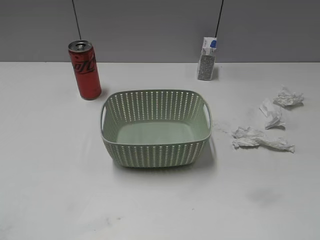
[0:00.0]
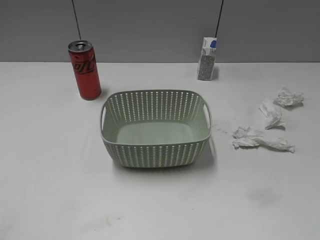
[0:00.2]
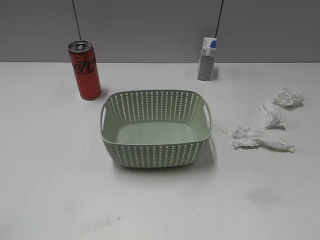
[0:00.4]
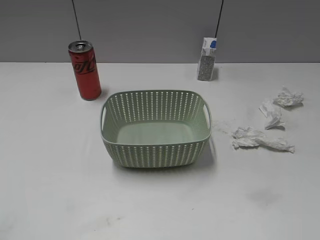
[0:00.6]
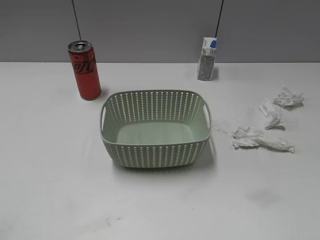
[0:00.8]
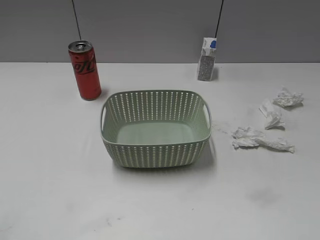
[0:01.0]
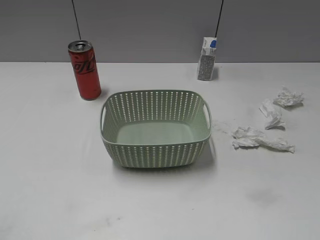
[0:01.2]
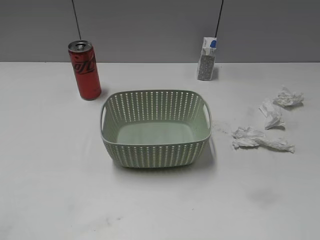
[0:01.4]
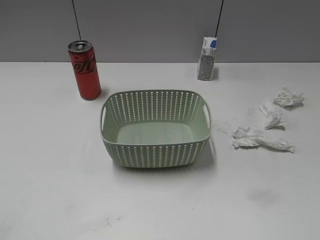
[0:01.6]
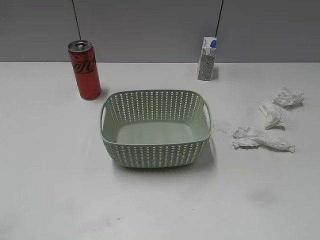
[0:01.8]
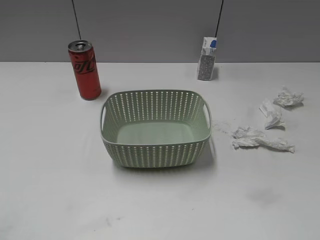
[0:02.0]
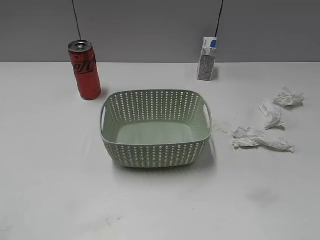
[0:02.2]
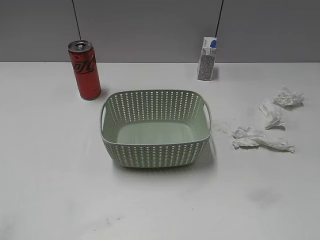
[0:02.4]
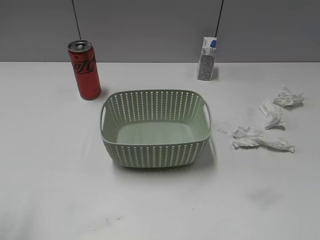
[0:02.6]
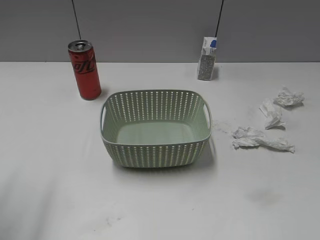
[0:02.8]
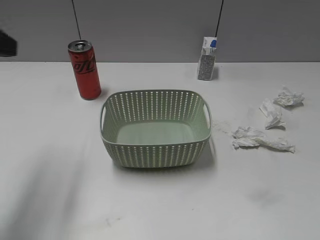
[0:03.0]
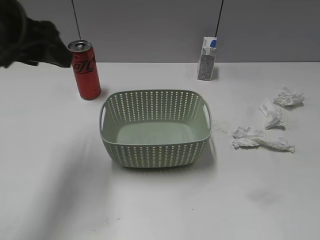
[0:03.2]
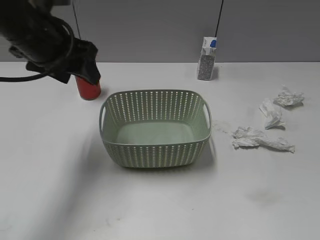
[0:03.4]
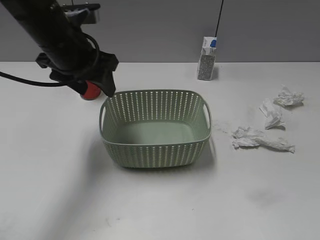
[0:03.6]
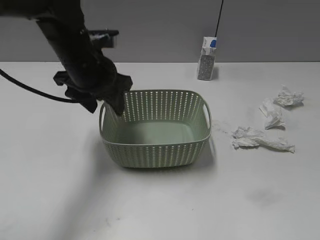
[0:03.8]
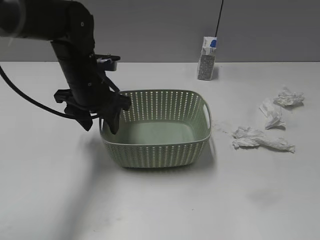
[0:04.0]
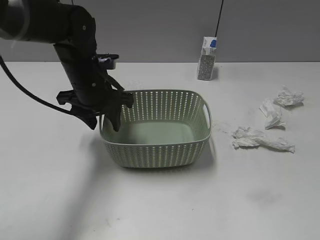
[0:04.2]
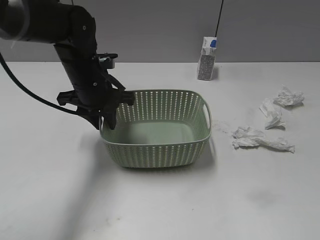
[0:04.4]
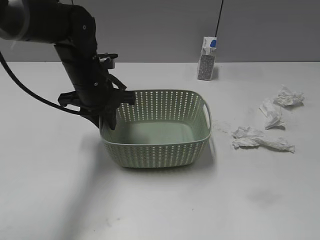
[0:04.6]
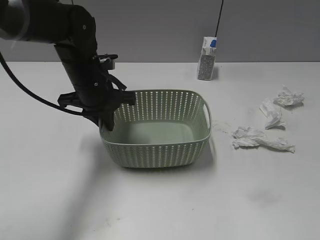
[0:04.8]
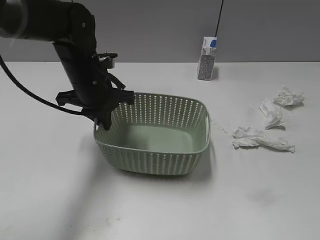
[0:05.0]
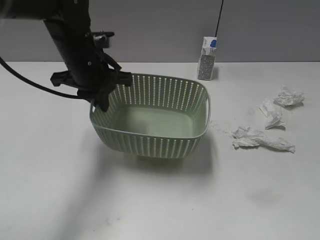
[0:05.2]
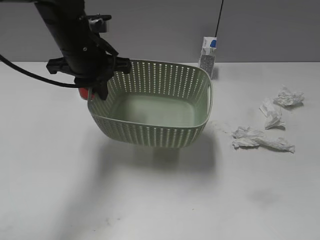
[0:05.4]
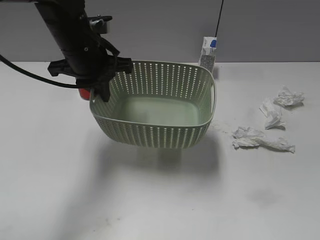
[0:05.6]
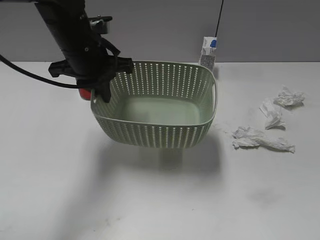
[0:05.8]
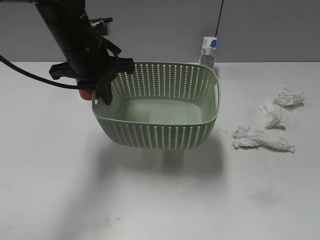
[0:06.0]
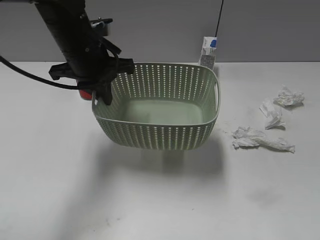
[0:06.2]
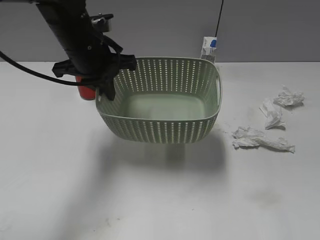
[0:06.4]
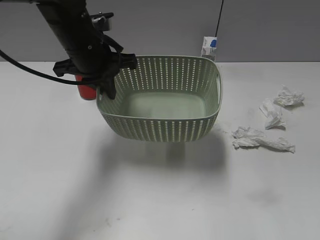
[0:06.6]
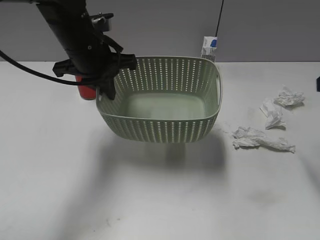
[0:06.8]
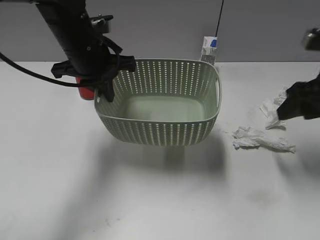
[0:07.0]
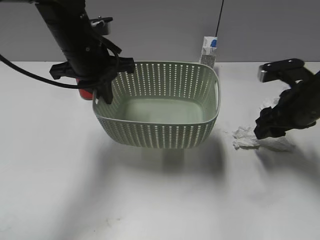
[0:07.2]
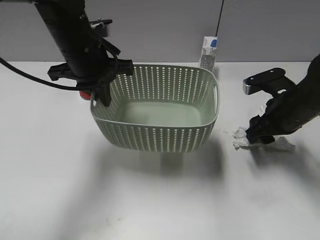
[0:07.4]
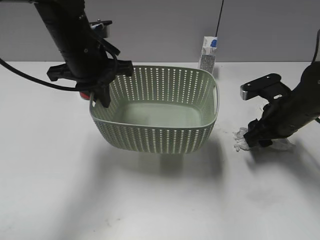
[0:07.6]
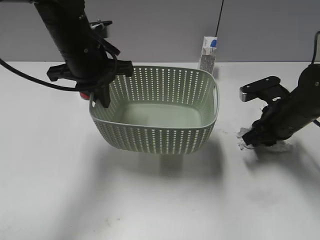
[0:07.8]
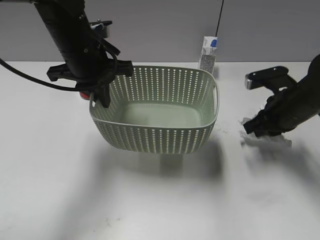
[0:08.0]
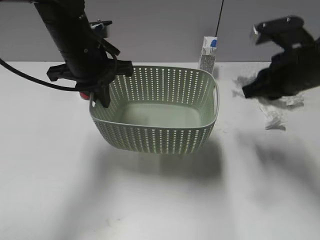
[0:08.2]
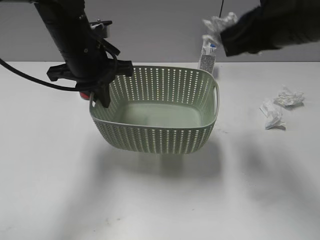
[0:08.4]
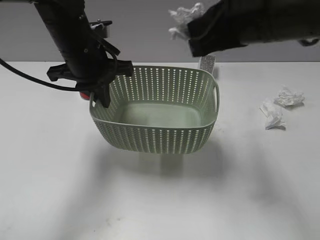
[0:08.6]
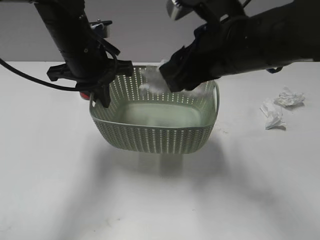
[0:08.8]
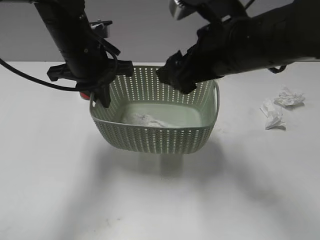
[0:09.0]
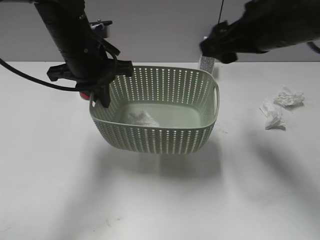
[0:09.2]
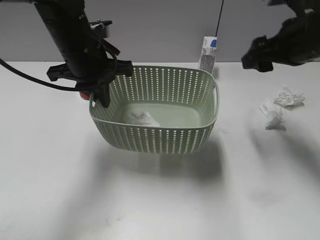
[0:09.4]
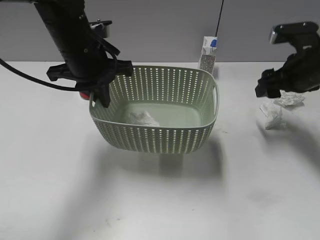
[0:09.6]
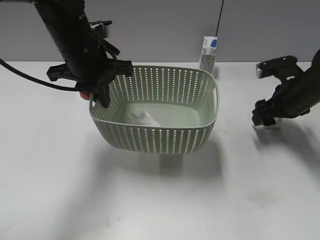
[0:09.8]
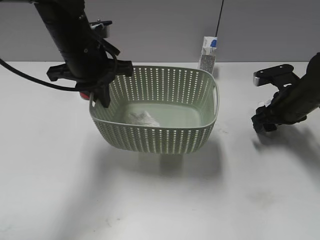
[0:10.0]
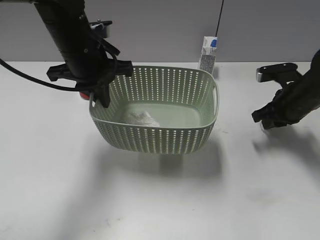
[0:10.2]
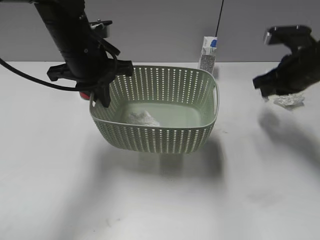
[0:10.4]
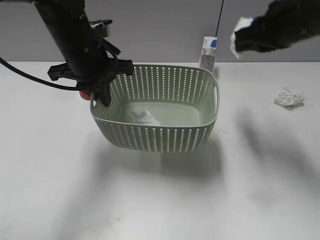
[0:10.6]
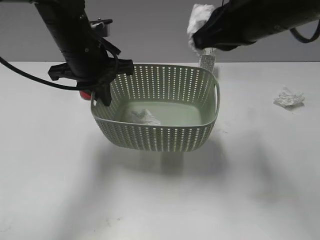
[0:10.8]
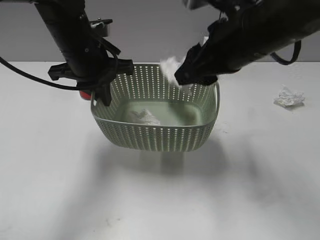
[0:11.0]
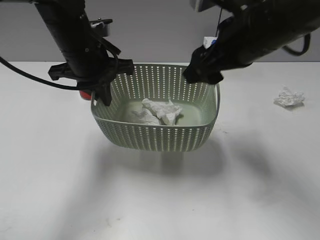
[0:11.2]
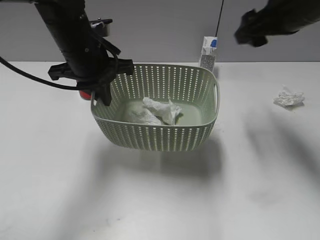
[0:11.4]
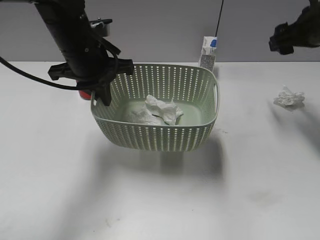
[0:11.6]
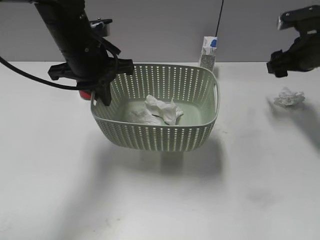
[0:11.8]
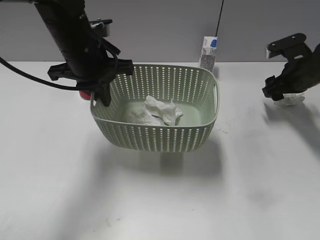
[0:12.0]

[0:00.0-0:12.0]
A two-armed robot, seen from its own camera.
Step, 0:03.0 to 0:05.0: Grasp the basket with left gripper.
Step, 0:05.2 to 0:06.4: Lift the basket with left gripper.
Step, 0:06.6 to 0:07.8: Grasp the waste paper with right gripper.
Step, 0:08.0 to 0:09.0: Place the waste paper in the basket with right gripper.
Step, 0:09.2 to 0:10.2: Grasp the waste paper with right gripper.
Step, 0:10.4 to 0:11.2: Place the waste paper in the basket with right gripper.
0:01.6 to 0:03.0: The left gripper is displaced forward by approximately 20 cm.
0:03.0 to 0:04.4: The left gripper moves downward, to the right and forward, about 25 cm, and closes up.
0:04.4 to 0:06.0: The left gripper shifts about 5 cm upward, and closes up.
0:06.0 to 0:07.6: The right gripper is displaced forward and downward by about 35 cm.
0:07.6 to 0:09.0: The right gripper travels to the left, upward and backward by roughly 20 cm, and closes and opens again.
0:09.0 to 0:10.4: The right gripper heads to the right, forward and downward, covering approximately 20 cm, and closes its fingers.
0:10.4 to 0:12.0: The right gripper goes some 5 cm forward, moves some 15 cm to the left and comes back, and opens its fingers.

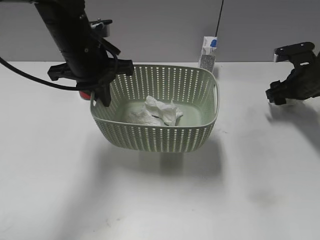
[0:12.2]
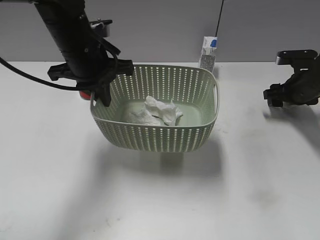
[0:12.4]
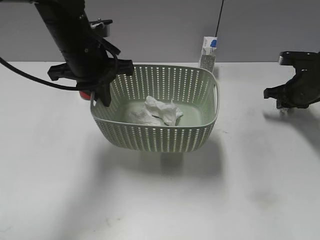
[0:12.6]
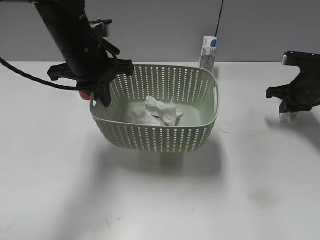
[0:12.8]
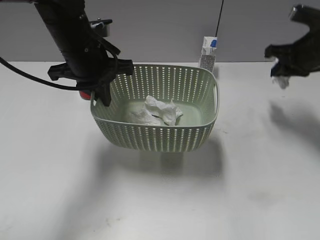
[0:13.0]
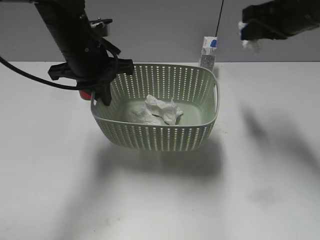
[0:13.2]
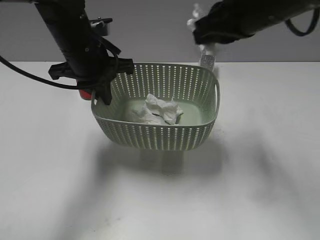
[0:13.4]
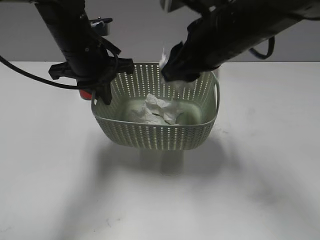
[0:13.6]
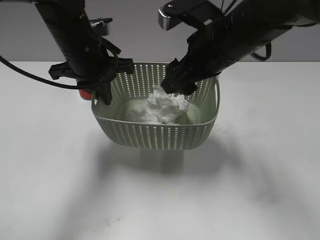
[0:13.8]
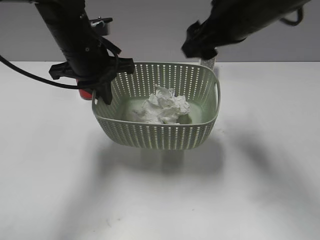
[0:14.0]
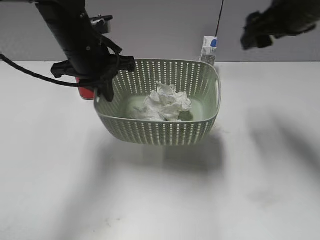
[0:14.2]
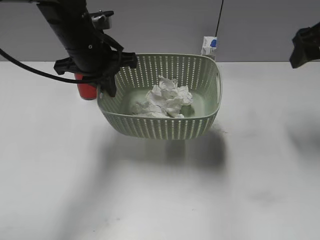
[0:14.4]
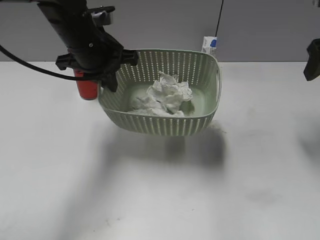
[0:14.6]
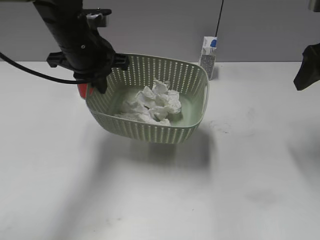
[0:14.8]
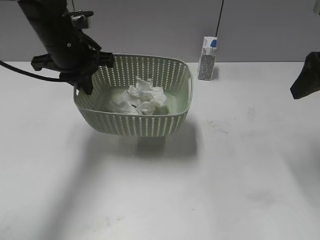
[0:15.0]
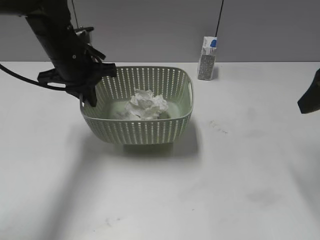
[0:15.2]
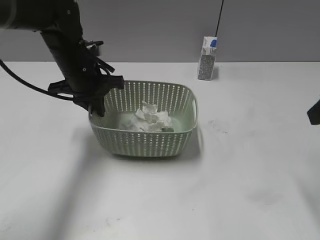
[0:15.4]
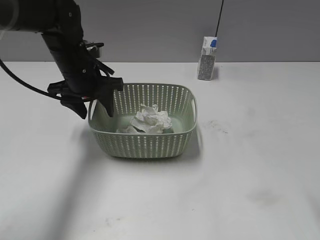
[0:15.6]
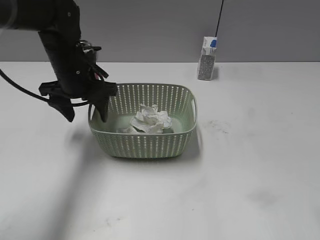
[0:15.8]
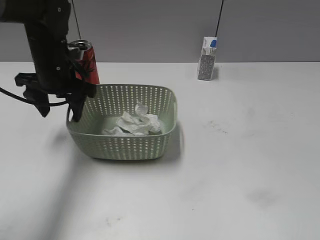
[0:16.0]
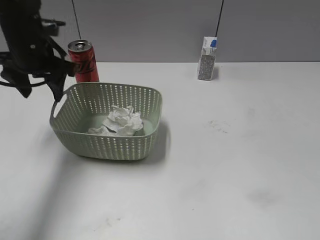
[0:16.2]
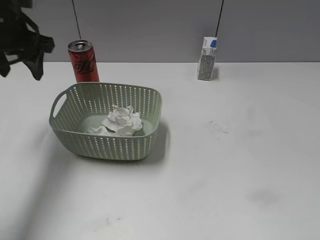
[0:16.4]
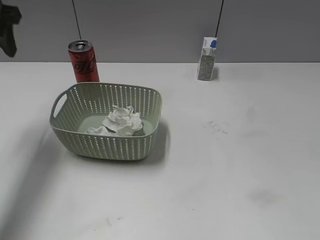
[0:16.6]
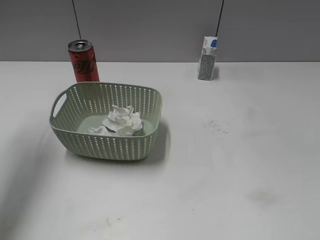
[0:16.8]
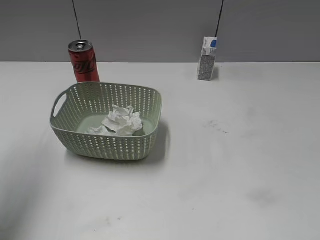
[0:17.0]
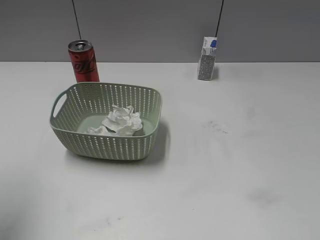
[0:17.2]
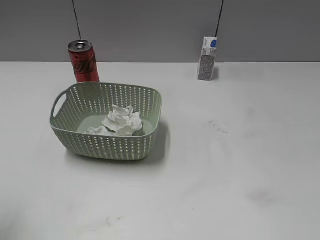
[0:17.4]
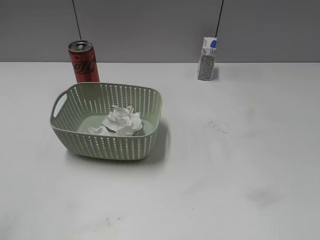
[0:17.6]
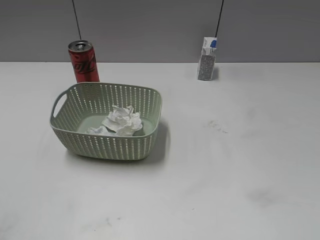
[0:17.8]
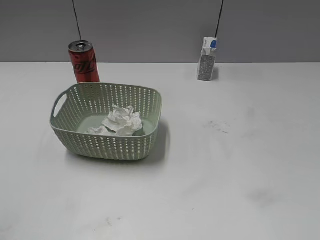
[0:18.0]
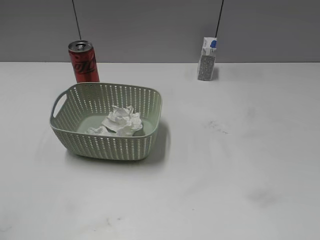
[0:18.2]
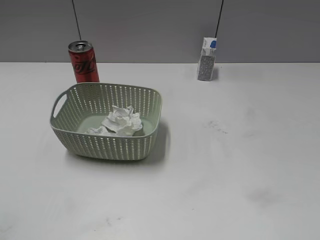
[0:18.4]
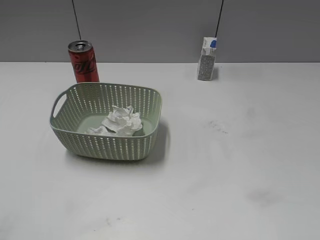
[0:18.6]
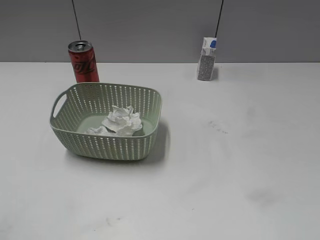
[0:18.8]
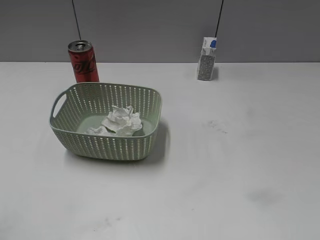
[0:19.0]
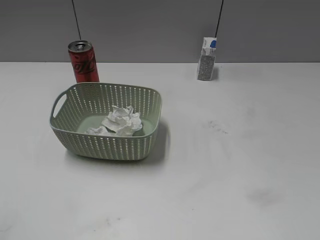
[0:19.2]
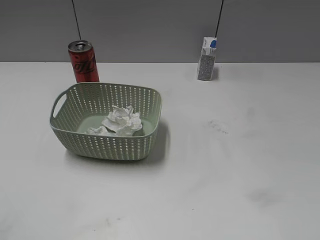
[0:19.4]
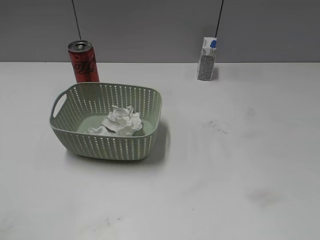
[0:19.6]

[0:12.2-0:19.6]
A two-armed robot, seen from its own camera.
Step, 0:12.8 to 0:13.8: Place the waste paper in the basket with right gripper.
Step, 0:14.0 to 0:16.2: Place the basket on the table with left gripper.
0:12.2 to 0:13.6: The right gripper travels to the left, upward and backward by approximately 30 cm, and closes up.
0:13.6 to 0:15.2: The left gripper changes place by about 5 cm; the right gripper goes approximately 20 cm to the right, and opens up.
0:15.2 to 0:16.6: The left gripper is displaced to the left and upward by approximately 15 cm, and opens its fingers, while the right gripper goes about 25 cm backward.
0:16.6 to 0:18.2: The left gripper heads backward, covering some 35 cm.
0:18.2 to 0:19.6: Both grippers stay about where they are.

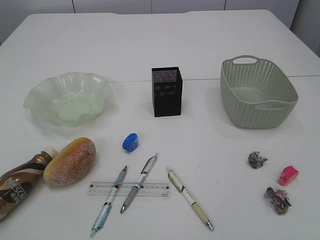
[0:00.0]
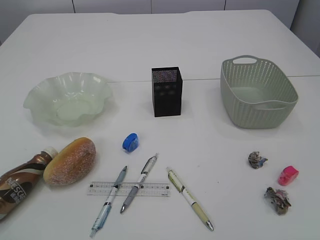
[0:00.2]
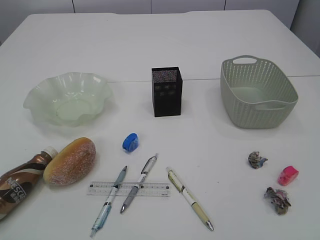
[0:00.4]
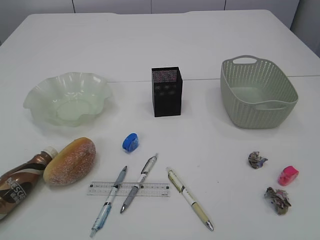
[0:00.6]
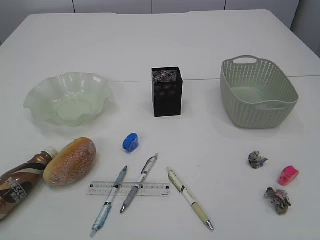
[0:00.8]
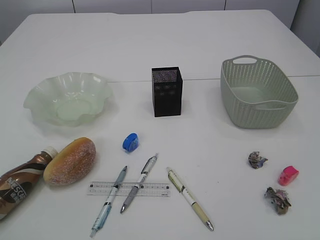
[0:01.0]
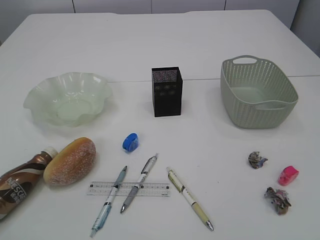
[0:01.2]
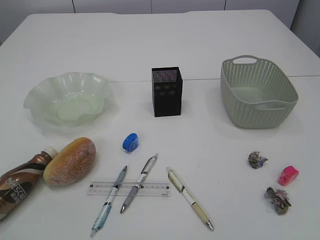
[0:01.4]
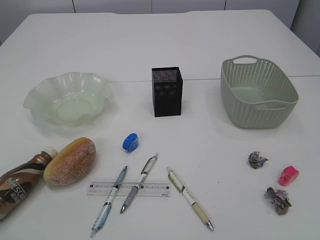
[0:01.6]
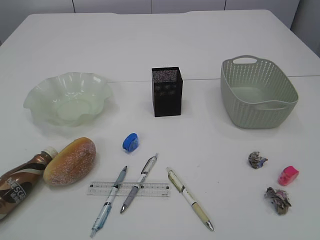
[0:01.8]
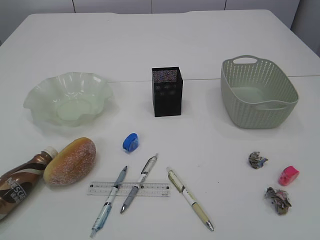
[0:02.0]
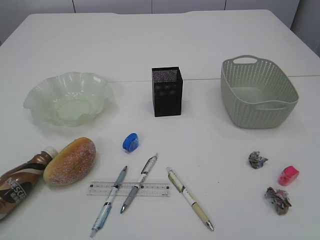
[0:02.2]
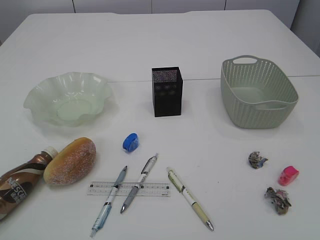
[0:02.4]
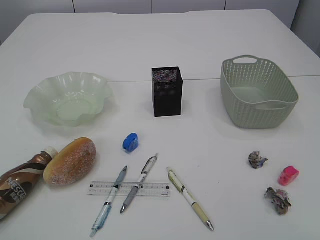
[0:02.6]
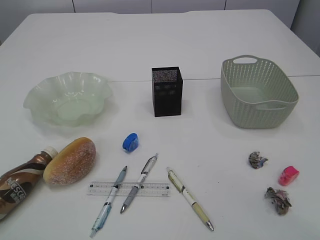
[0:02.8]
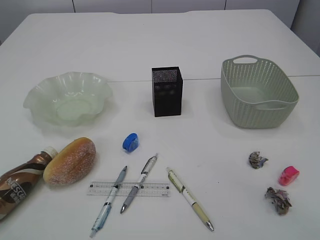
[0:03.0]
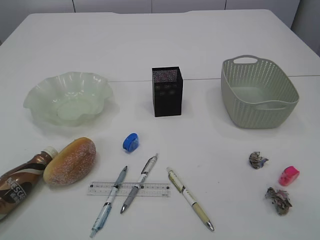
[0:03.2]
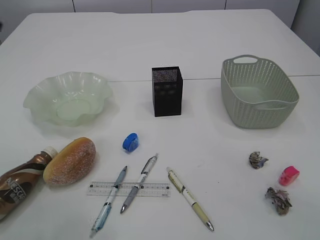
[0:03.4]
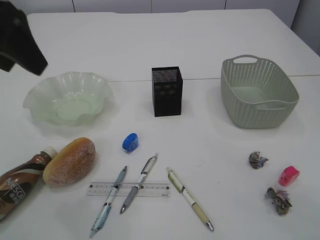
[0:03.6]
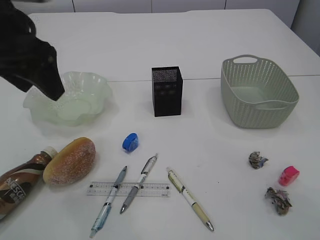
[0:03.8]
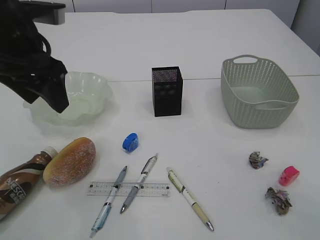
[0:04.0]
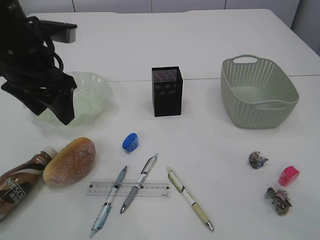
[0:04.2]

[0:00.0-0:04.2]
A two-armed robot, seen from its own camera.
0:02.8 to 0:04.2: The left gripper shifts roughly 25 cm forward.
